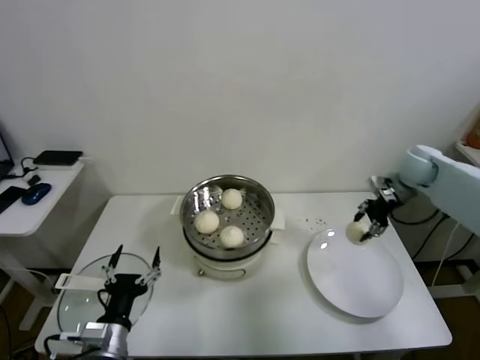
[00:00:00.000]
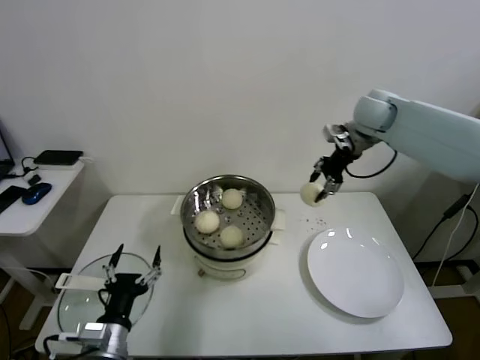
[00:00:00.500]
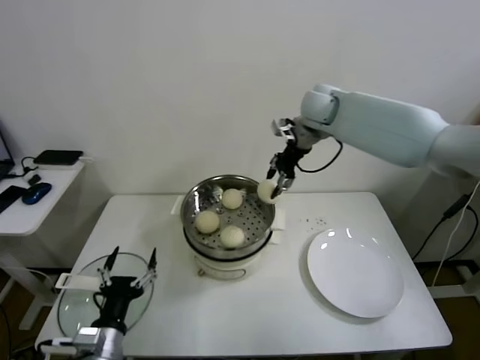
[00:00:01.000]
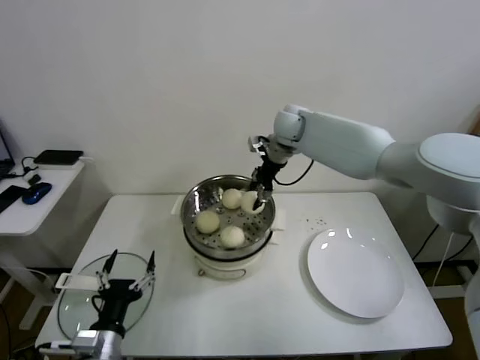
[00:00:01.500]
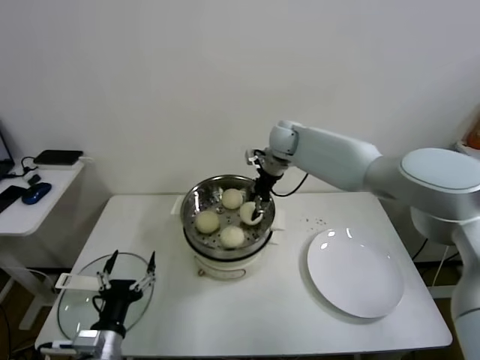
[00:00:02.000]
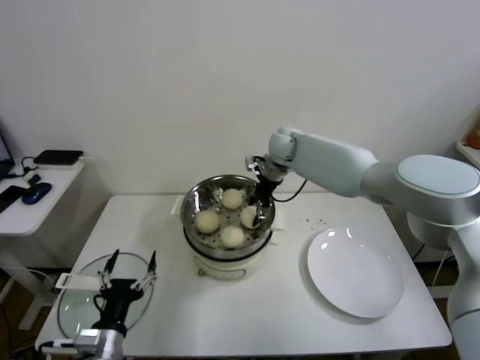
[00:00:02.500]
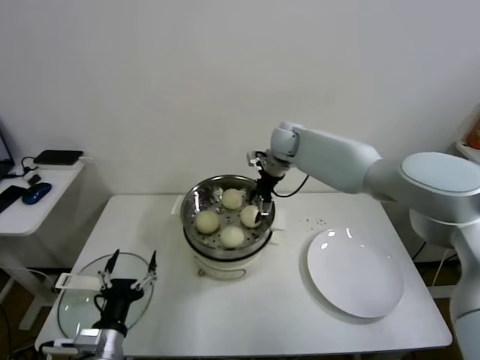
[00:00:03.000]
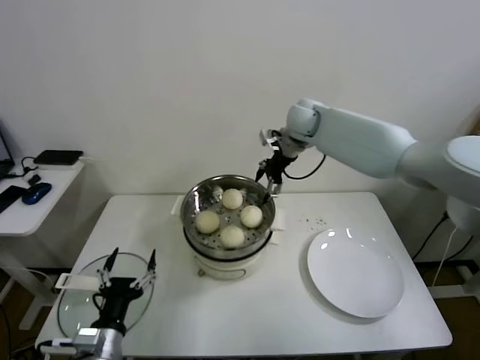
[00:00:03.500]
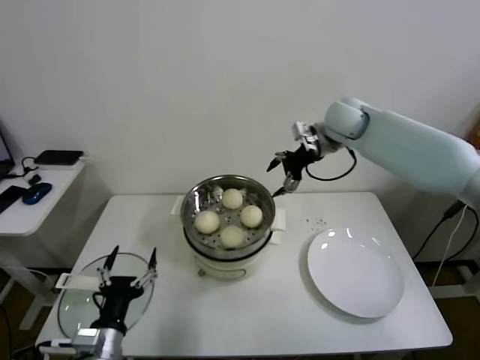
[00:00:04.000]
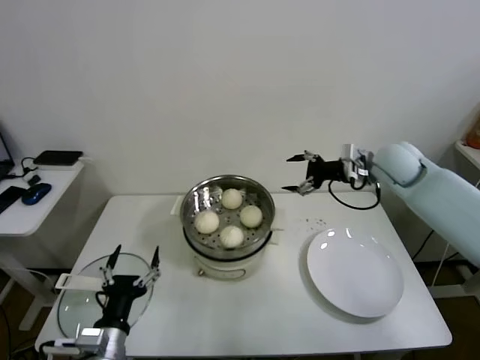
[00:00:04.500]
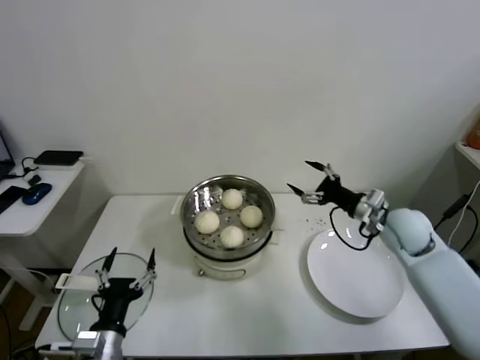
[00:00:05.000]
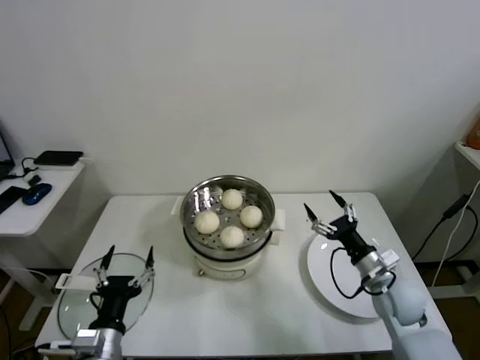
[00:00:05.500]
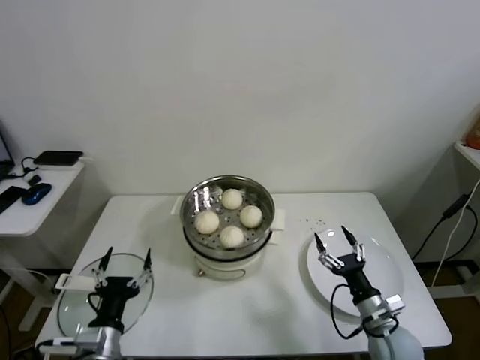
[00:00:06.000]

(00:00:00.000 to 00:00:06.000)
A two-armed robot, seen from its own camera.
Task of the whole recording: take steamed baozi put them in steamer.
Step, 00:00:00.000 - 00:00:03.000: Place the baozi on the steamer with right gripper.
00:00:00.000 - 00:00:02.000: The right gripper travels to the left by roughly 30 cm.
00:00:02.000 - 00:00:04.000: The right gripper is displaced to the right and upward by approximately 15 cm, and opens up.
00:00:04.000 - 00:00:06.000: The right gripper is displaced downward and backward by some 50 cm.
